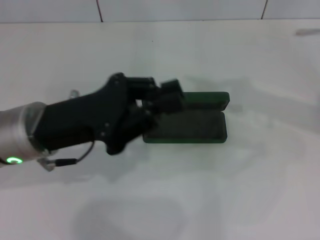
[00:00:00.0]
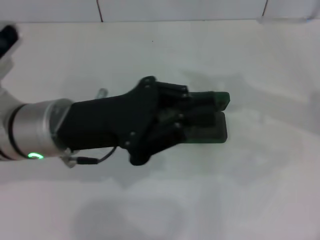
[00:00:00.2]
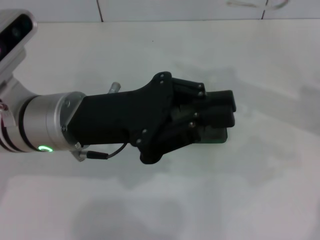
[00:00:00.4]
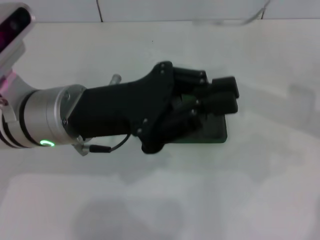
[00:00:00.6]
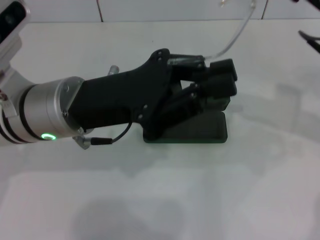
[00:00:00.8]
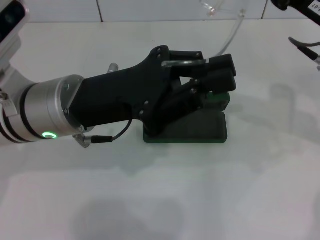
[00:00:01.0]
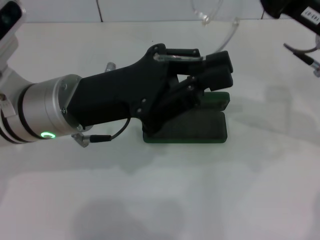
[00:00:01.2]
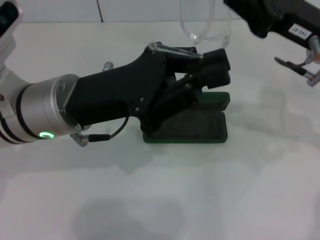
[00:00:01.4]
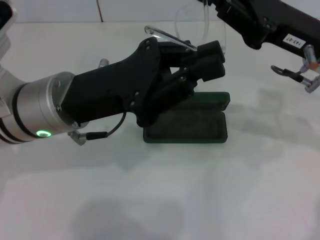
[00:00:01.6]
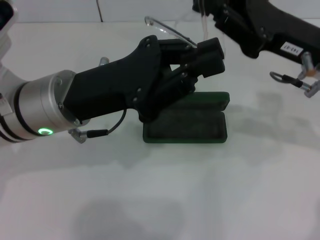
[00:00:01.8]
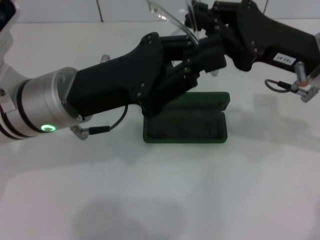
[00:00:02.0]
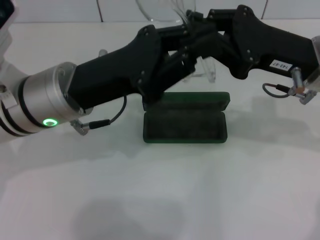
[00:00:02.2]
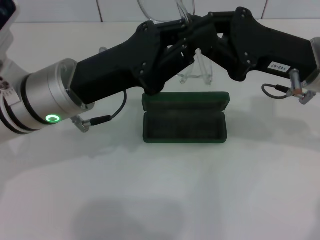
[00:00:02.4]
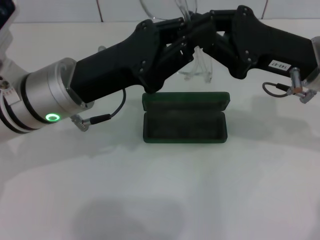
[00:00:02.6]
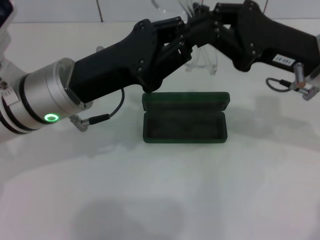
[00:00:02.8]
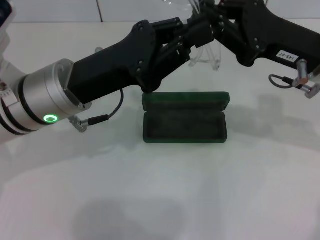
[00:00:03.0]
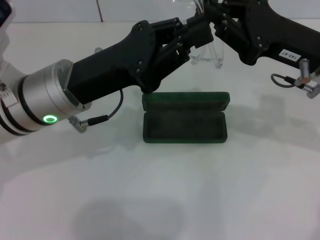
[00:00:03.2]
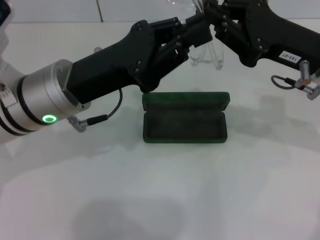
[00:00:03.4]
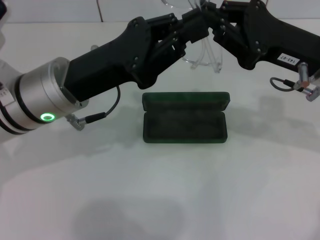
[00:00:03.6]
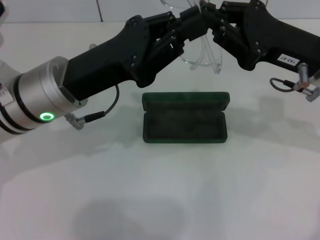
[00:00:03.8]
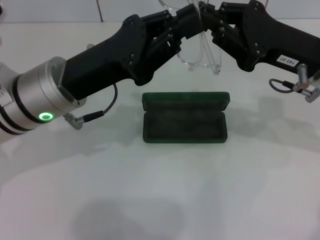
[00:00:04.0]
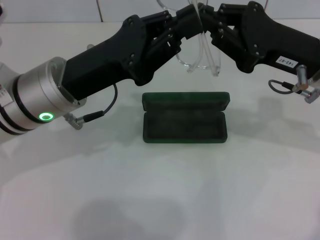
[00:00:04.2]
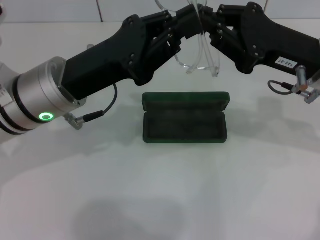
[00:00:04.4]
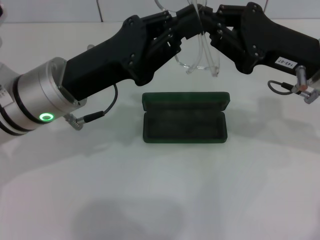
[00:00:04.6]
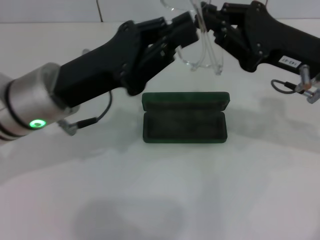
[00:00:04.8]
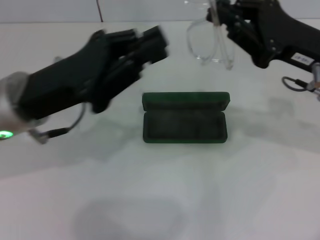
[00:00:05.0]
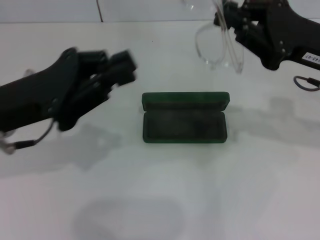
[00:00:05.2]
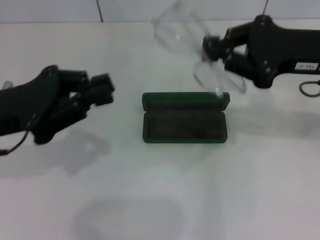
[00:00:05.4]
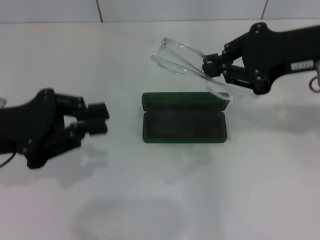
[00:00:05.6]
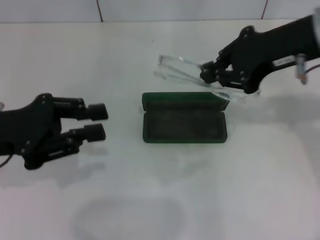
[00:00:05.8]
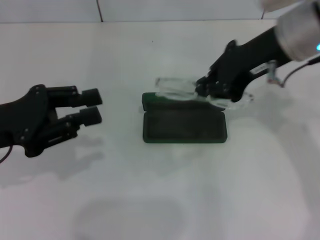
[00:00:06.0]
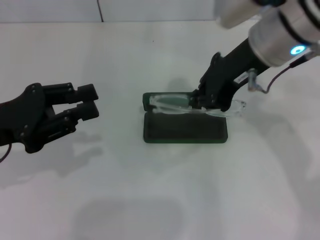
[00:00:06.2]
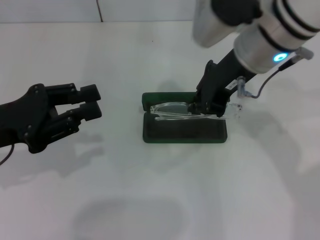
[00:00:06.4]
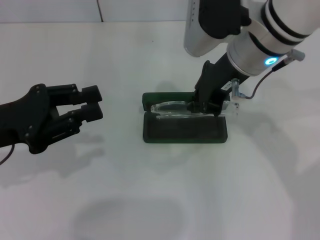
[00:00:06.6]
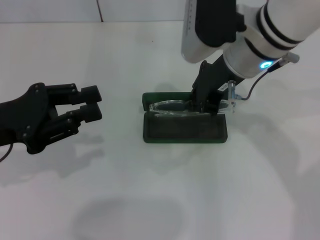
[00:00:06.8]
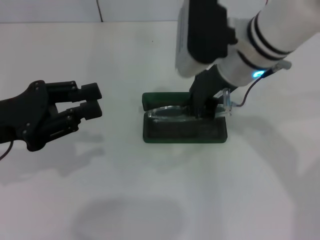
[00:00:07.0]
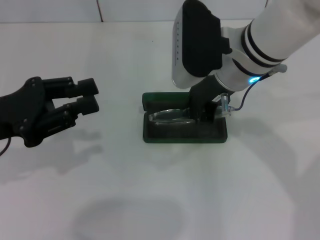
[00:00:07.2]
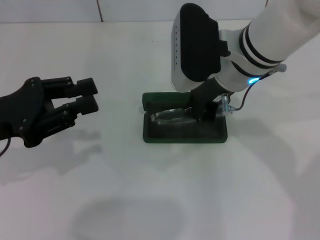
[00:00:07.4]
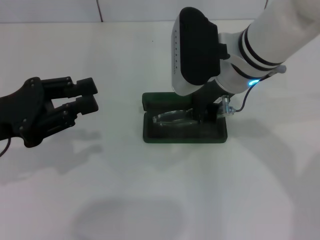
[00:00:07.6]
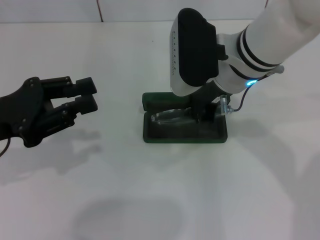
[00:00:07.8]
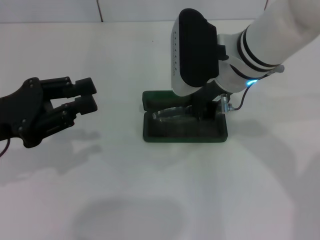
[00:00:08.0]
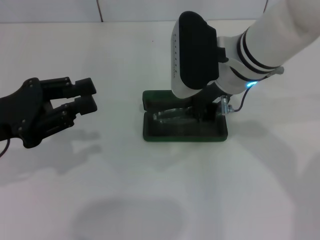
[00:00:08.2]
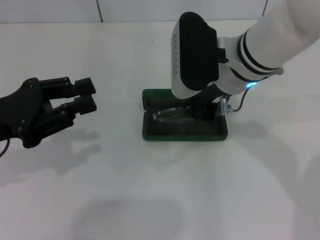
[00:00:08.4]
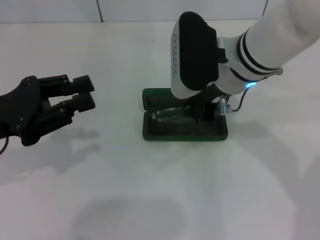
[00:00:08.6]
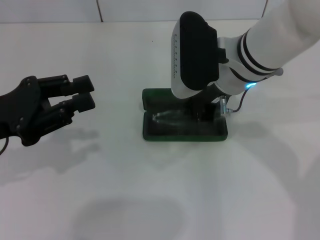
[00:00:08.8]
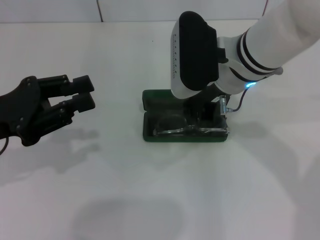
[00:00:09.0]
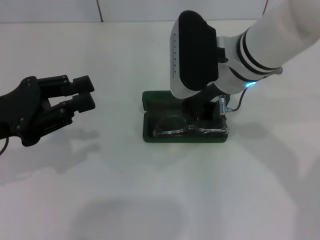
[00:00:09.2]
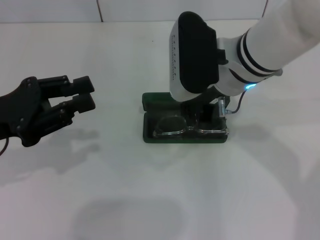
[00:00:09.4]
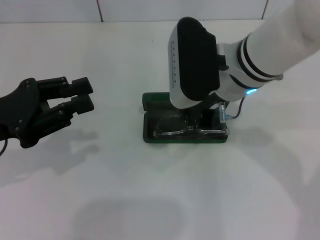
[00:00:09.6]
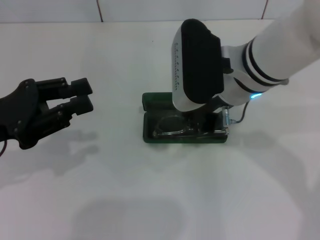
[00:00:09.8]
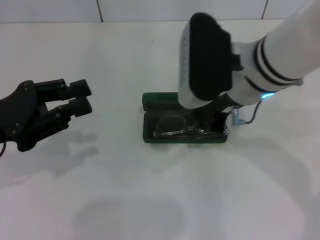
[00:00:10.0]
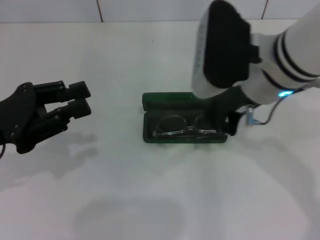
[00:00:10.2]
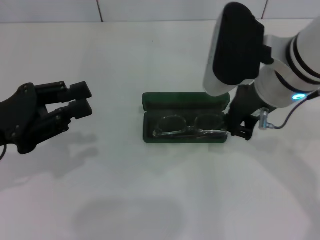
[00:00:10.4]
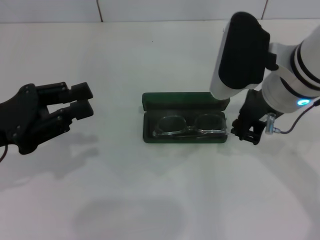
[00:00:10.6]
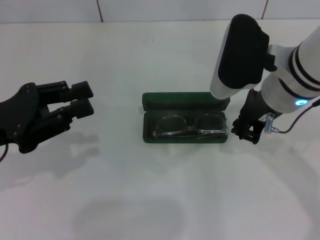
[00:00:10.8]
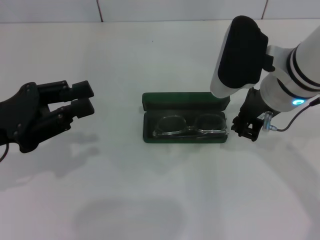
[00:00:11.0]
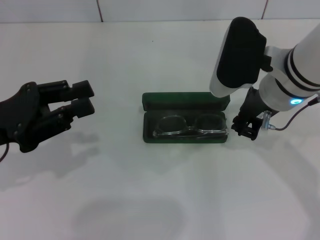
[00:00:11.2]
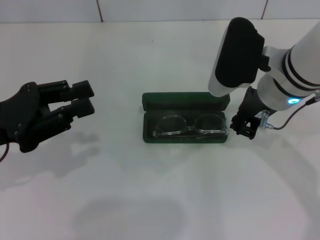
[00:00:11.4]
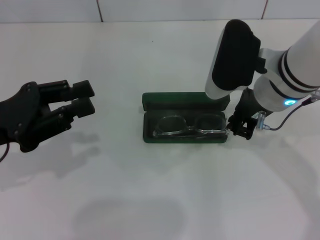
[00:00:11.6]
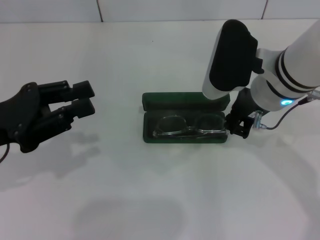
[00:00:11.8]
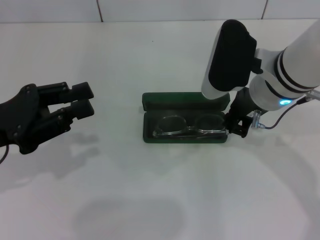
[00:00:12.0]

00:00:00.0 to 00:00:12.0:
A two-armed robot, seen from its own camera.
Step, 00:00:00.0 to 00:00:02.4: Fold the frame with your left hand.
00:00:00.0 to 00:00:01.6: The right gripper shifts approximately 10 cm to the left and downward.
00:00:03.0 to 00:00:04.4: Both grippers stay about where they are.
00:00:04.4 to 00:00:06.0: The right gripper travels upward and to the left by roughly 10 cm; the left gripper heads to the left, covering some 10 cm.
00:00:06.0 to 00:00:07.6: The right gripper travels to the left and downward by about 10 cm.
00:00:07.6 to 00:00:09.0: Both grippers stay about where they are.
00:00:09.0 to 00:00:10.4: The right gripper moves roughly 5 cm.
00:00:10.4 to 00:00:12.0: The grippers move only a little.

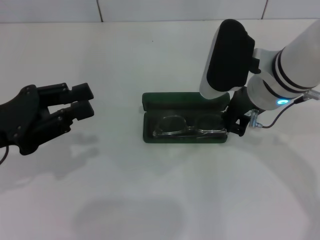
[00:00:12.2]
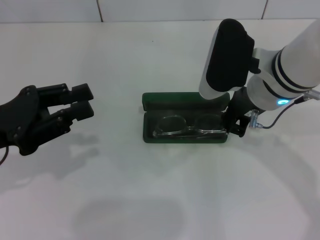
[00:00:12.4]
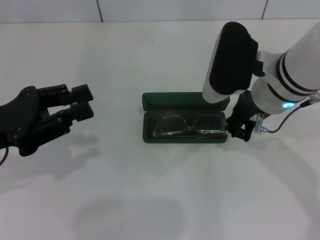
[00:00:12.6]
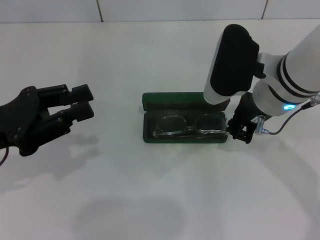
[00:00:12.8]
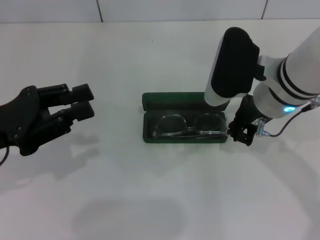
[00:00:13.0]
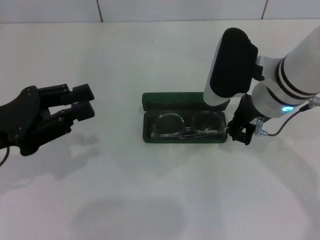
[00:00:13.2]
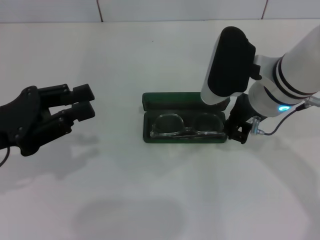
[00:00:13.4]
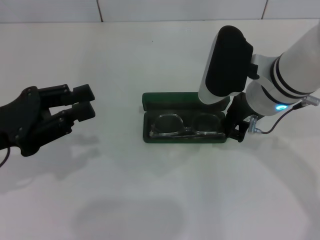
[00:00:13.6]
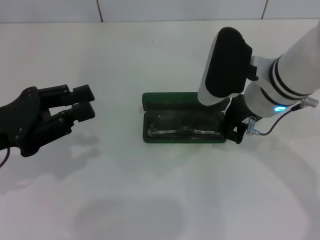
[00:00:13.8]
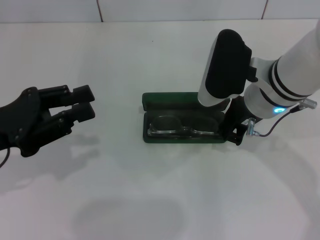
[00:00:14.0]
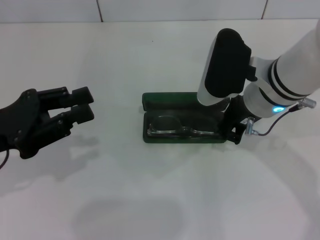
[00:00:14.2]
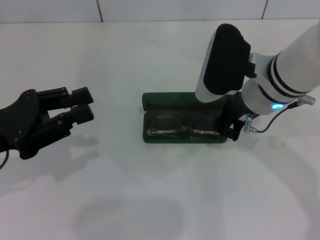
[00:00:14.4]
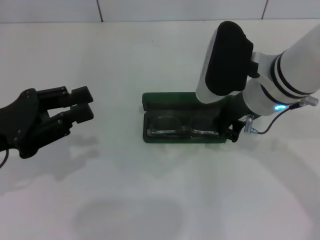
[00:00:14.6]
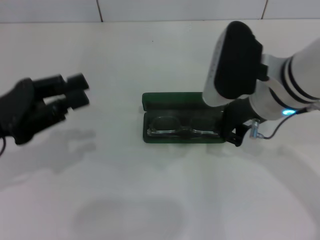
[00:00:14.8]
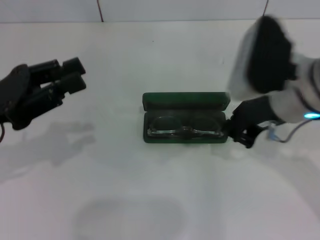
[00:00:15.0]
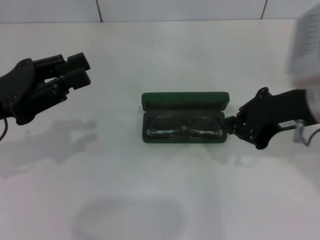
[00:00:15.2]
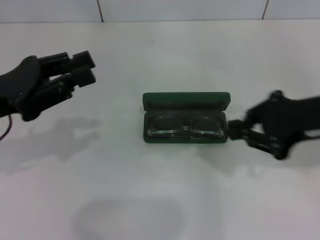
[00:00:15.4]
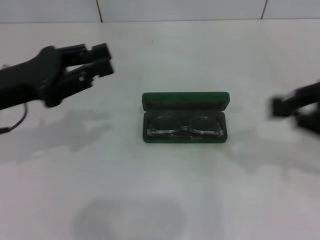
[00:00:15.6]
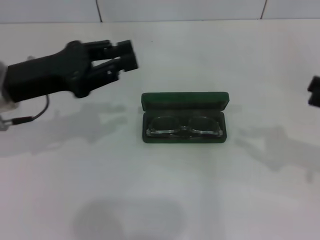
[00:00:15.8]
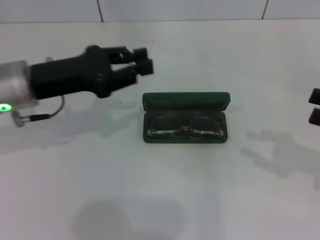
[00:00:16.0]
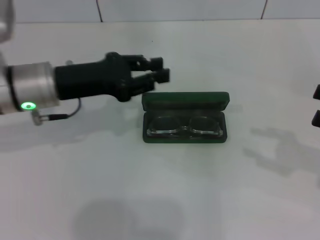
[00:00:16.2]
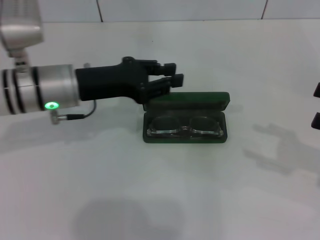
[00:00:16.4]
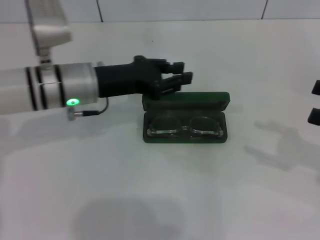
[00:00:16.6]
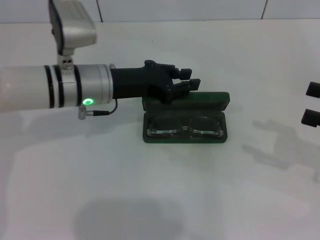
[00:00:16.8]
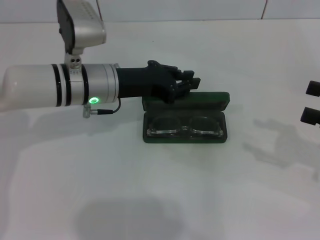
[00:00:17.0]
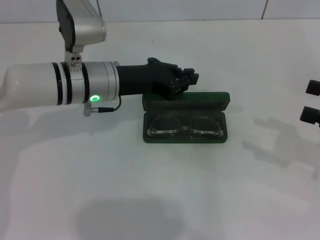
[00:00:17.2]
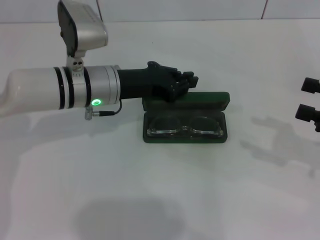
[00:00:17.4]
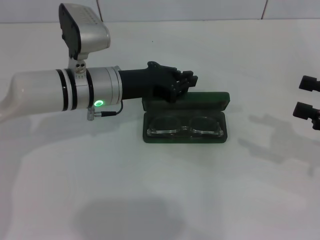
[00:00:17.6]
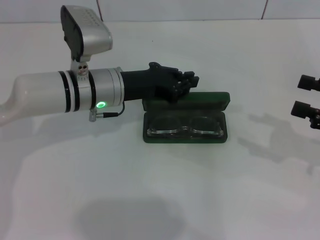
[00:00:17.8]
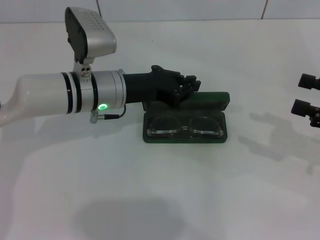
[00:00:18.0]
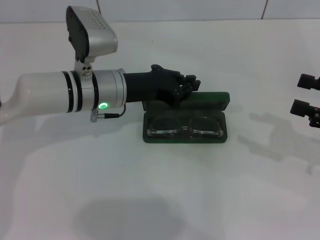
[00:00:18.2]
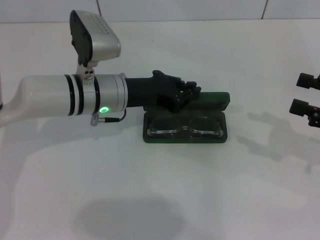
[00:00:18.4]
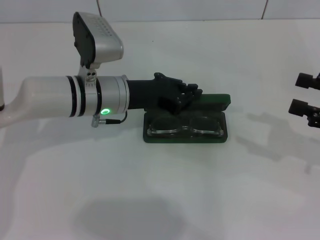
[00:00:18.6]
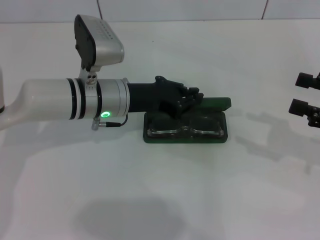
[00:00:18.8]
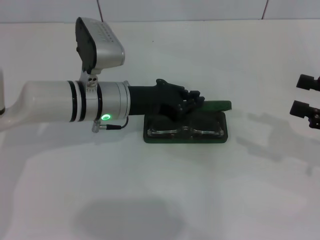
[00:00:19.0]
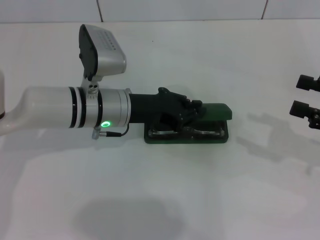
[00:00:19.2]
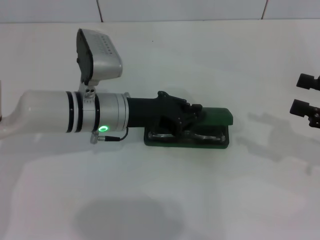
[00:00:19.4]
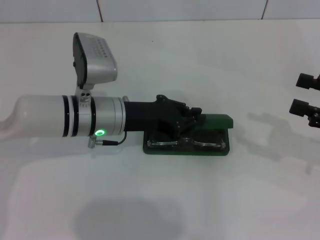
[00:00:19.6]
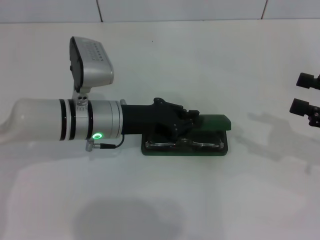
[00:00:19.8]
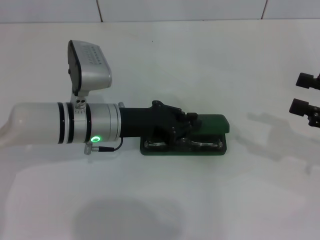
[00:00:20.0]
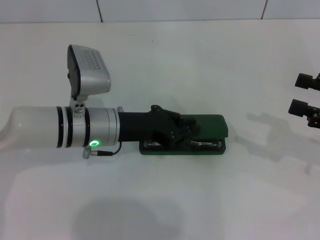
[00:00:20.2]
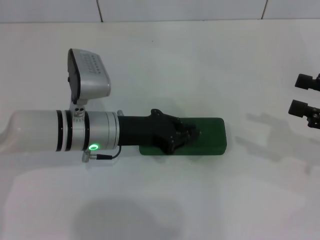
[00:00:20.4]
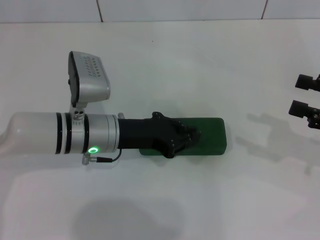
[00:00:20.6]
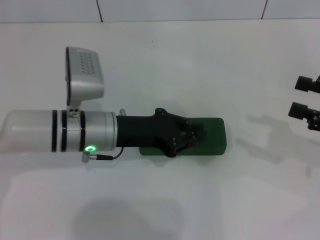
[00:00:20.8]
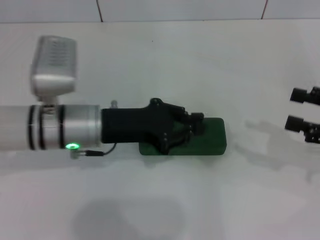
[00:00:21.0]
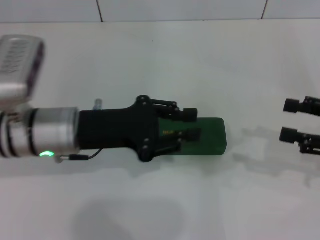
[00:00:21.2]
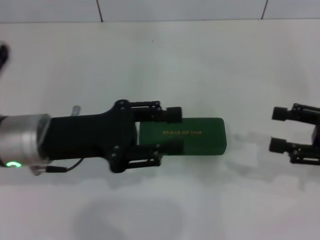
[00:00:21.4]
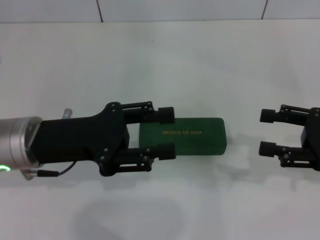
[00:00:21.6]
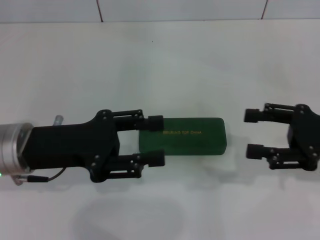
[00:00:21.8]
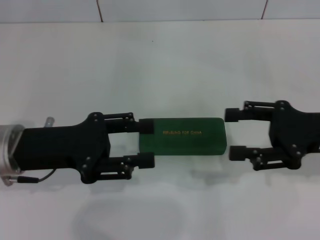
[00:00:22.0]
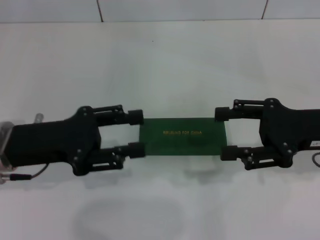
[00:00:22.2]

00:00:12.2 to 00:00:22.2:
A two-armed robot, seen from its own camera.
Step, 00:00:12.2 to 00:00:14.2: Put the glasses into the case with your right hand.
Step, 00:00:14.4 to 00:00:20.2: Close the glasses case with your left hand.
00:00:12.2 to 00:00:13.6: Neither gripper changes place.
00:00:15.0 to 00:00:16.4: The right gripper shifts approximately 20 cm to the right, and opens, while the left gripper goes about 15 cm to the right and forward.
00:00:16.4 to 00:00:18.0: The left gripper shifts approximately 5 cm to the right.
00:00:18.0 to 00:00:20.8: The grippers stay close to where they were, moving slightly.
00:00:20.8 to 00:00:22.2: The right gripper goes some 10 cm to the left; the left gripper heads to the left and backward, covering roughly 10 cm, and opens.
